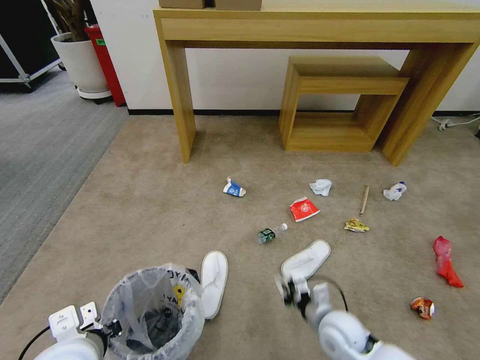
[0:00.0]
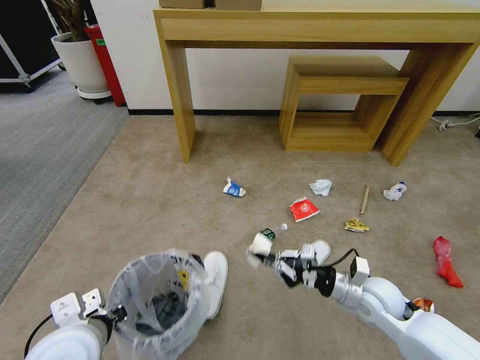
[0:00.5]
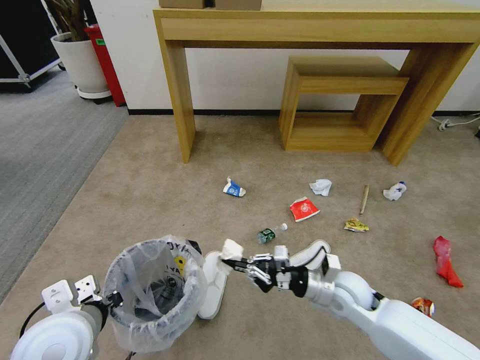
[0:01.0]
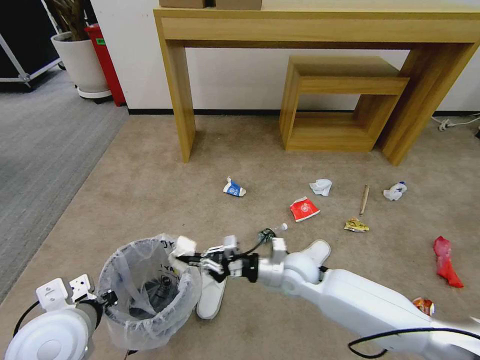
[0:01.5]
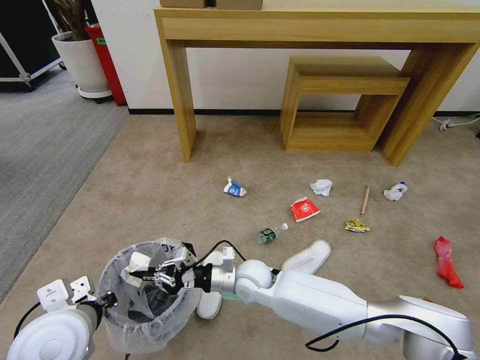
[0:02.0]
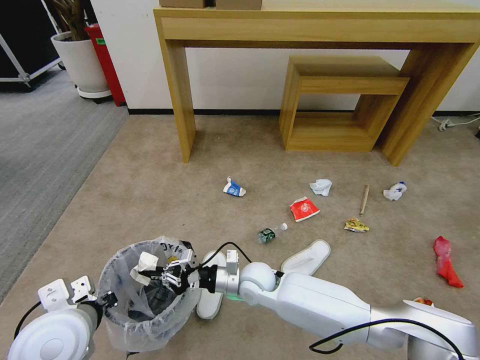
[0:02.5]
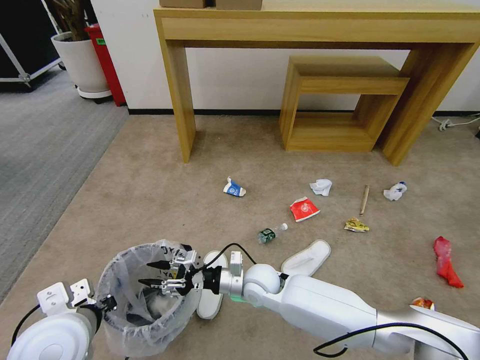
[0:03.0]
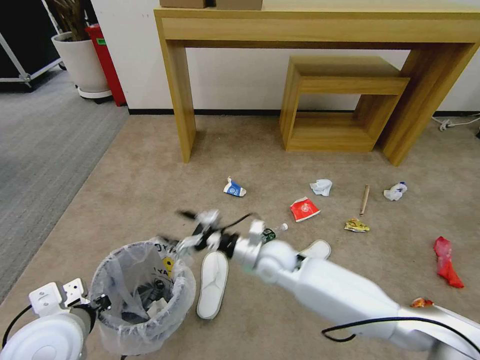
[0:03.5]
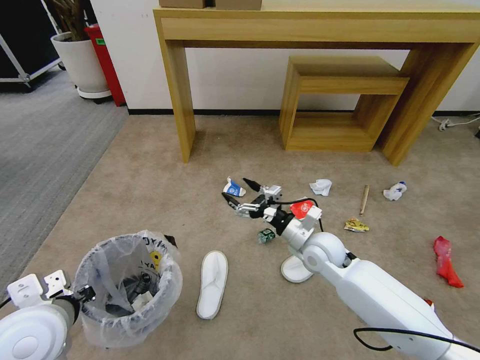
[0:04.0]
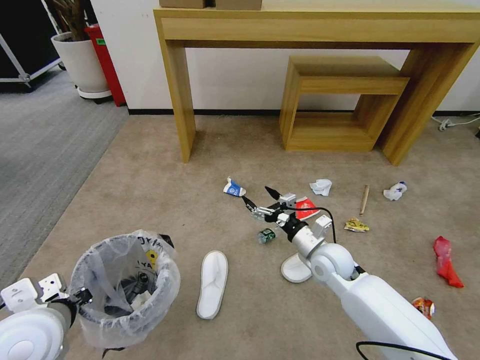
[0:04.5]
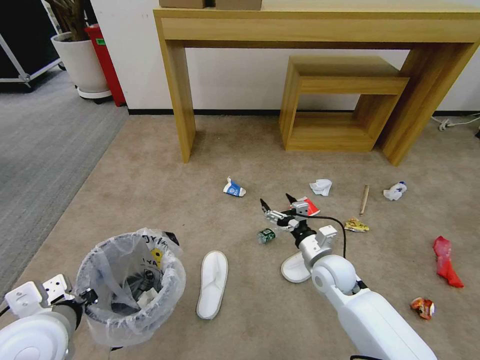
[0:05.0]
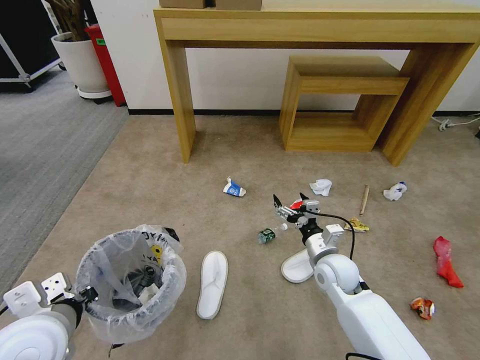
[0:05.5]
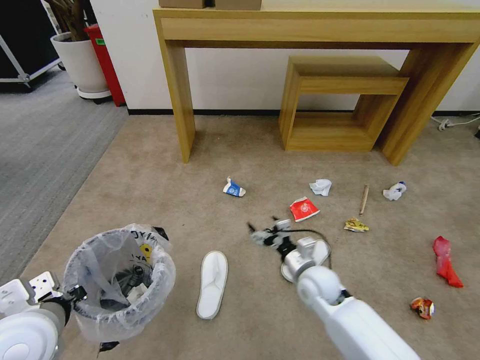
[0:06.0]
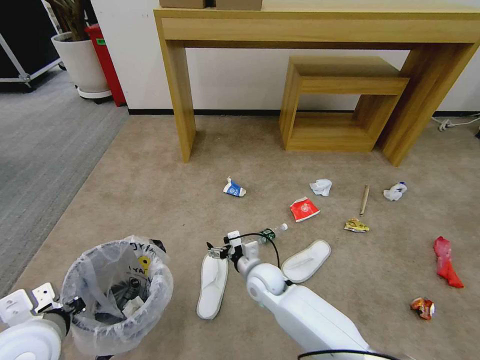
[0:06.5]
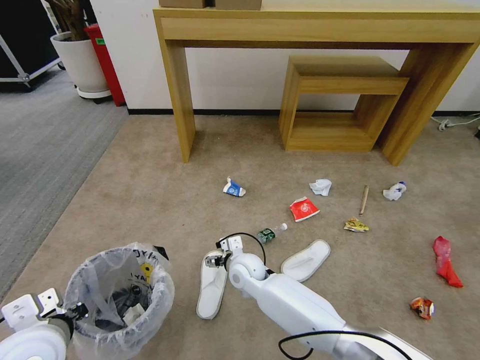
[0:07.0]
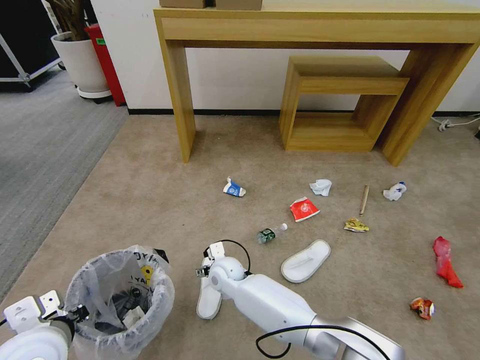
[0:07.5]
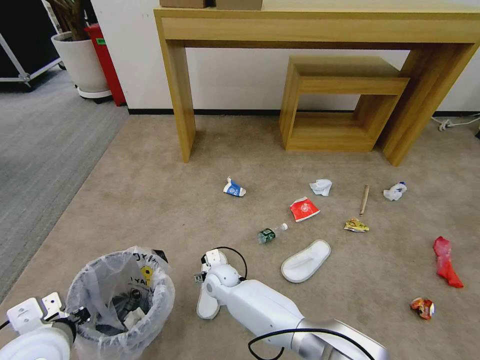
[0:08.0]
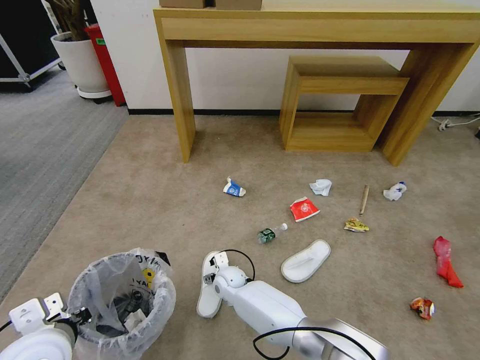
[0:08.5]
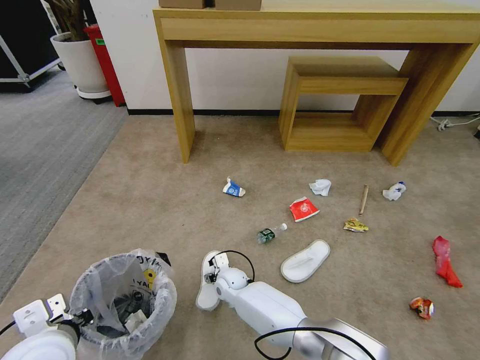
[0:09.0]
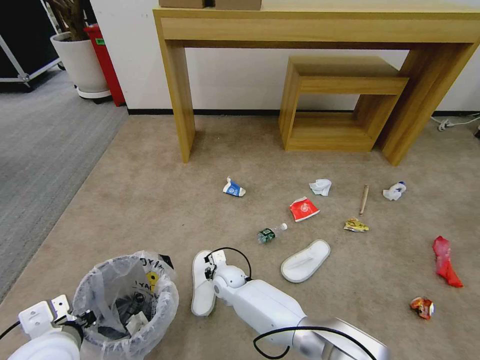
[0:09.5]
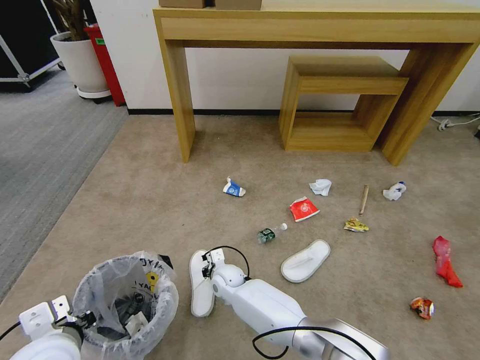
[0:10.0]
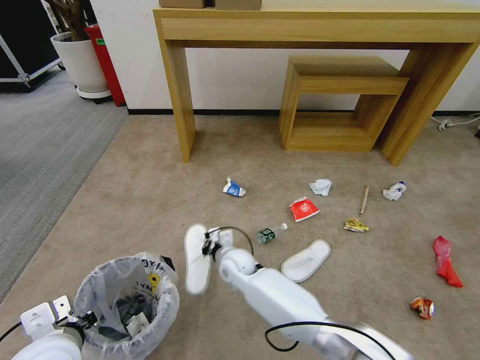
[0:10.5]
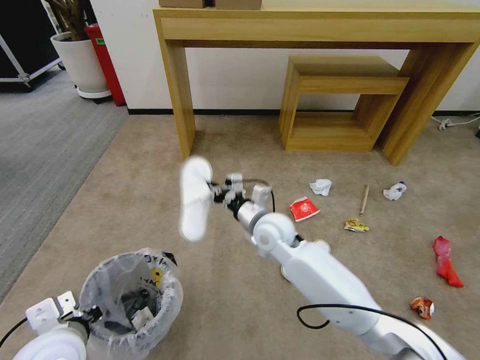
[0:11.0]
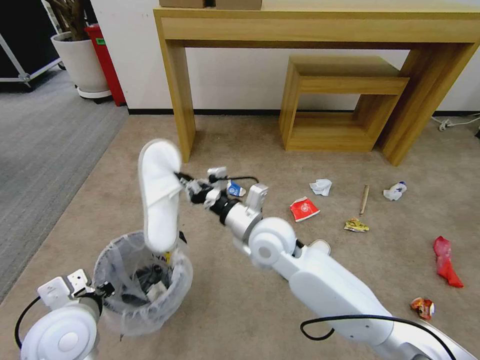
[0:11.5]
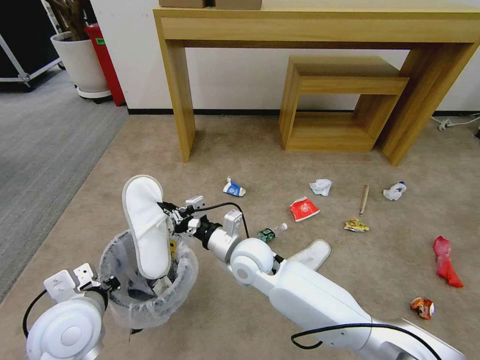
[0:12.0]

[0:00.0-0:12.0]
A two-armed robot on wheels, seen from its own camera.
Task of the whole recording: Pick up the trash bin and place the garbage on the floor into it.
0:00.0 to 0:02.0: The right gripper shifts about 25 cm to the left and forward.
0:02.0 to 0:04.0: The right gripper is displaced to the right by roughly 15 cm, and opens its fingers.
0:04.0 to 0:06.0: The right gripper is displaced downward and backward by roughly 10 cm.
0:06.0 to 0:08.0: The right gripper goes some 25 cm to the left.
0:08.0 to 0:10.0: The right gripper closes.
0:10.0 to 0:12.0: The left gripper shifts about 5 cm forward. Meanwhile the right gripper is displaced upward by roughly 20 cm.

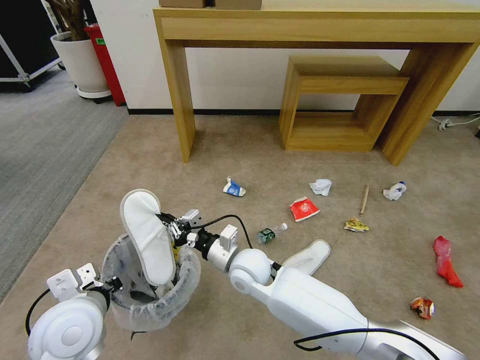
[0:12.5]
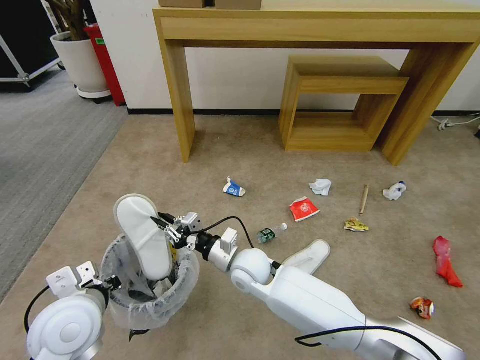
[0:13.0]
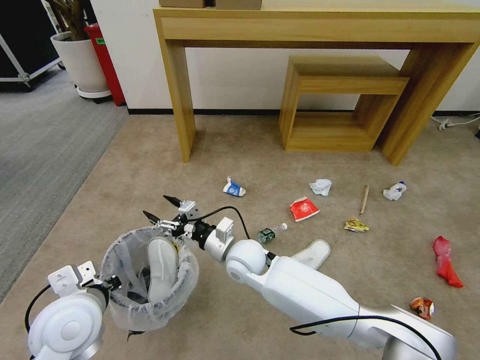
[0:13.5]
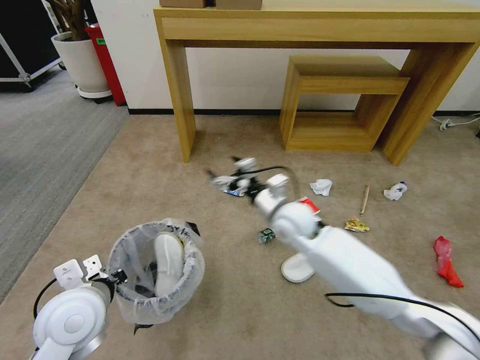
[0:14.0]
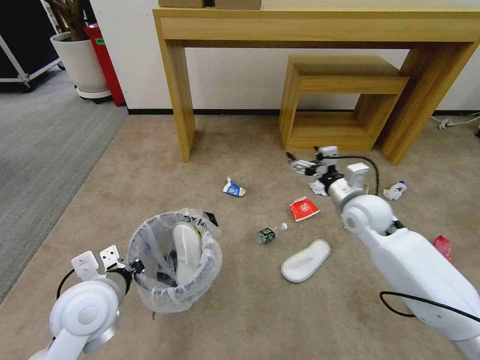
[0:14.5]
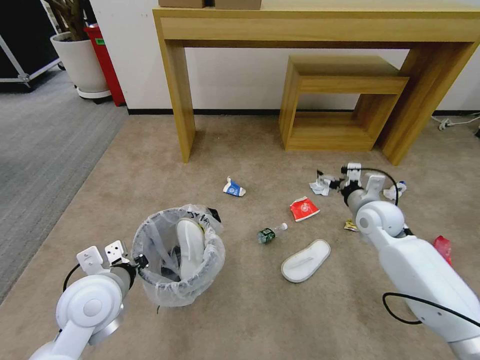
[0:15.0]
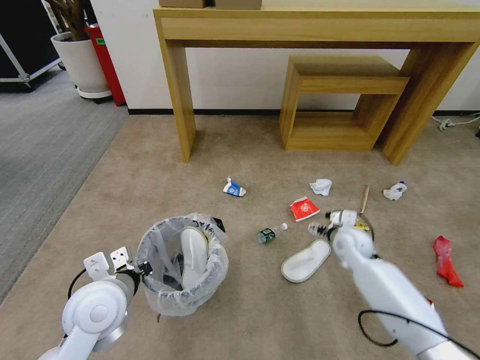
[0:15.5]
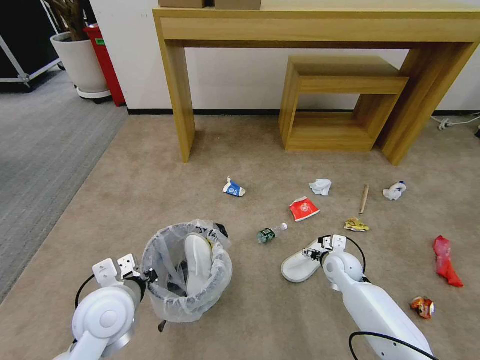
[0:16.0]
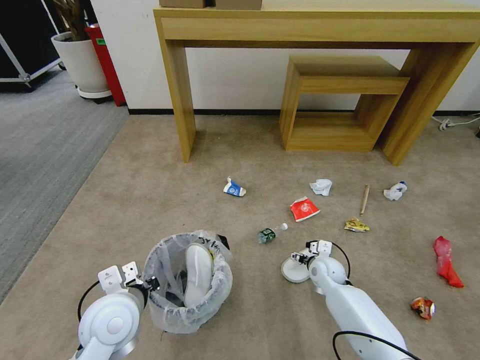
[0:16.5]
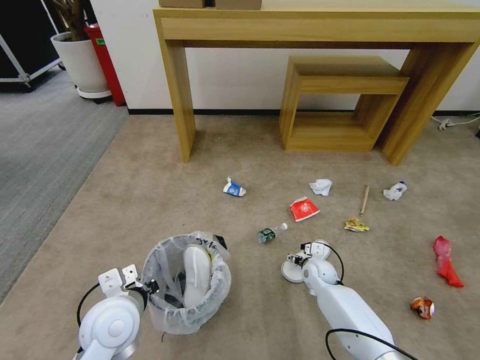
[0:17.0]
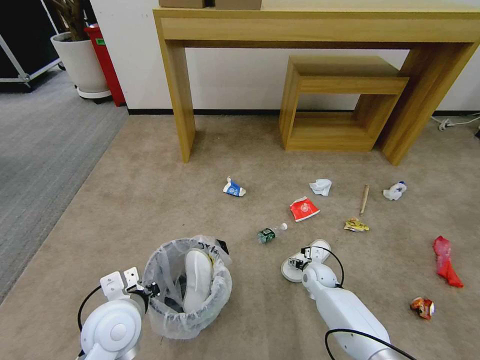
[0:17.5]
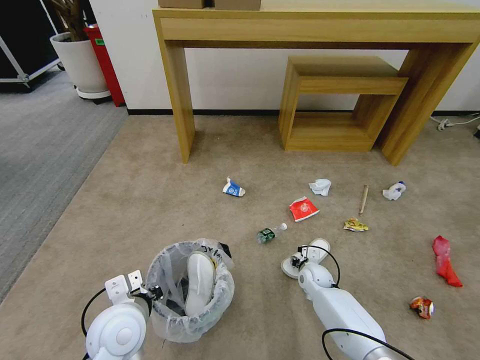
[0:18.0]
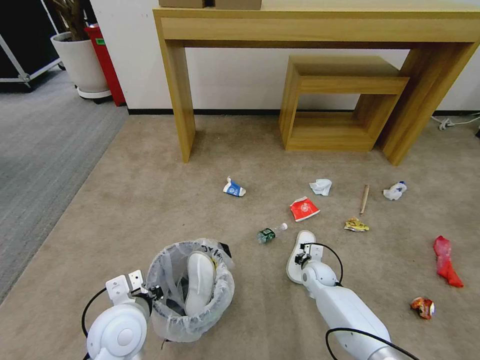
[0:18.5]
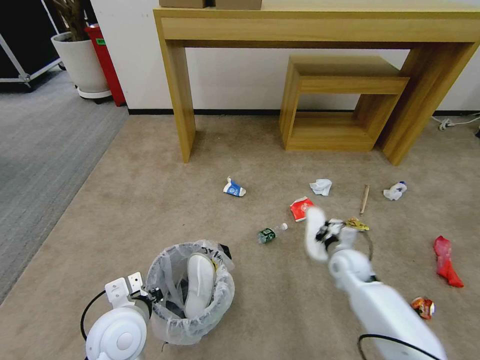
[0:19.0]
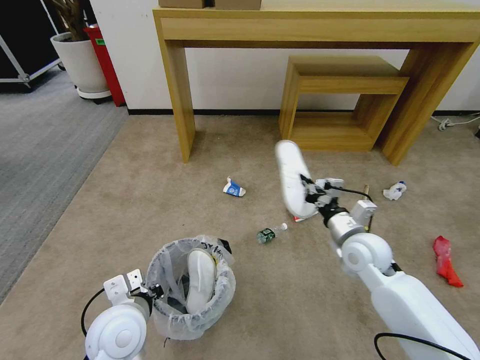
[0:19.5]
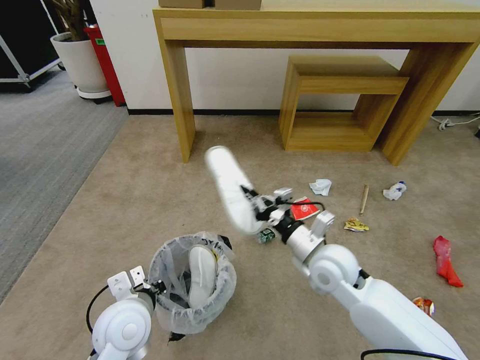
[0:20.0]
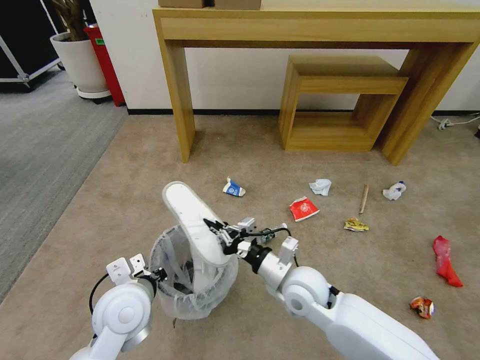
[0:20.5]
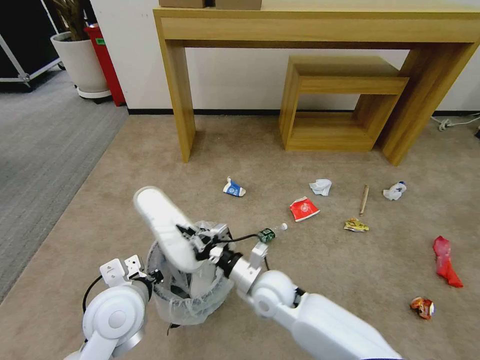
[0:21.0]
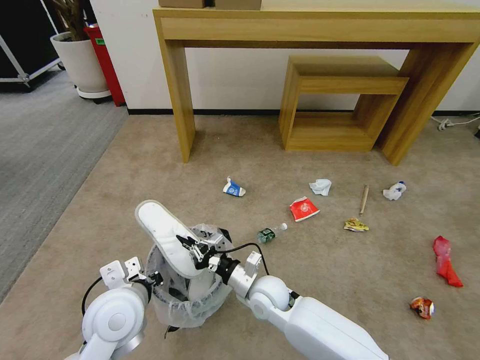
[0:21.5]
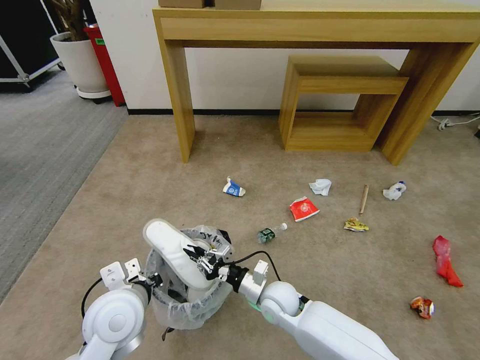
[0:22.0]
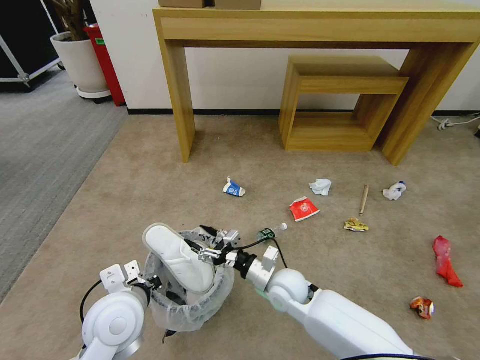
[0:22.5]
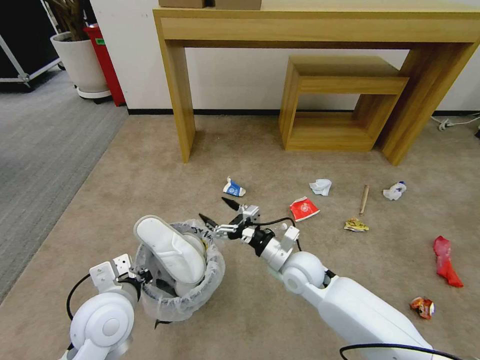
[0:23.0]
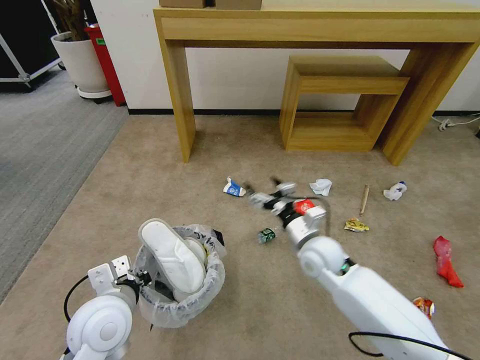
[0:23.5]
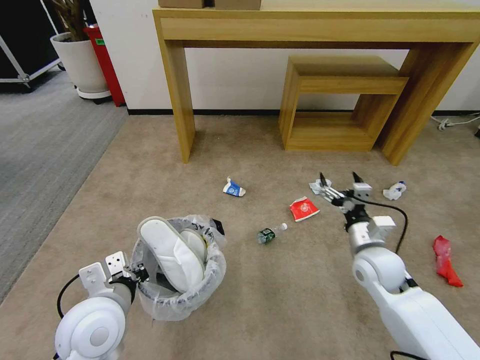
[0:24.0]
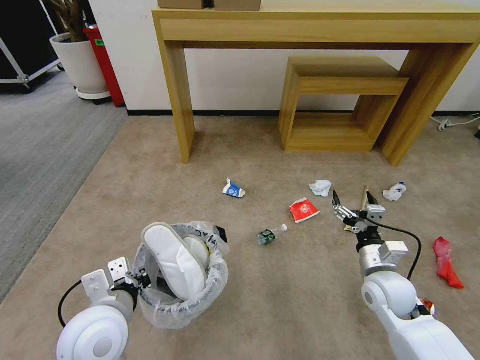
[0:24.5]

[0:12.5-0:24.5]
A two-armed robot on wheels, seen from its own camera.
Task of the whole recording: Pick up the trash bin and place the garbage on the floor into it.
0:12.5 to 0:14.5: The right gripper moves to the right, about 25 cm, and opens up.
0:14.5 to 0:16.5: The left gripper changes place by roughly 5 cm. Meanwhile the right gripper goes roughly 25 cm downward.
0:16.5 to 0:18.5: The right gripper closes up.
0:18.5 to 0:20.5: The right gripper shifts roughly 25 cm upward, backward and to the left.
0:20.5 to 0:22.5: The right gripper travels downward by approximately 5 cm, and opens.
0:22.5 to 0:24.5: The right gripper shifts roughly 20 cm to the right.

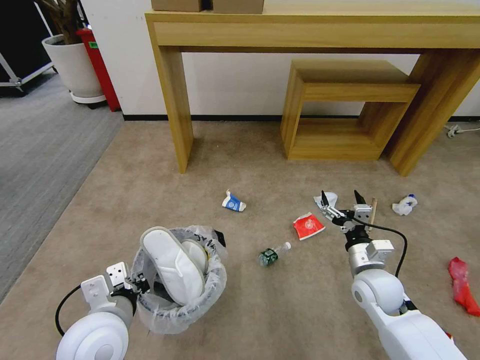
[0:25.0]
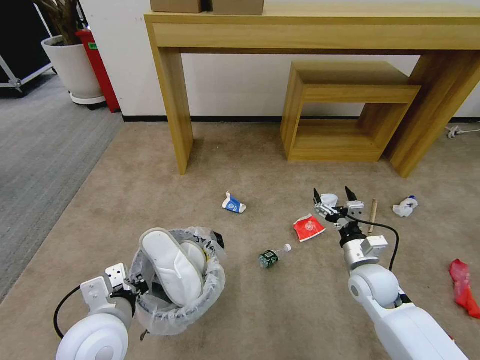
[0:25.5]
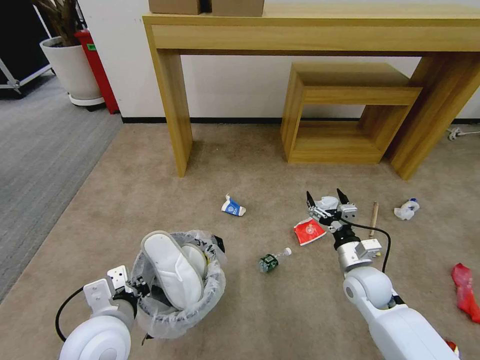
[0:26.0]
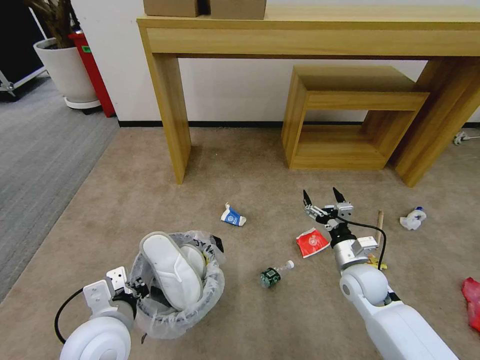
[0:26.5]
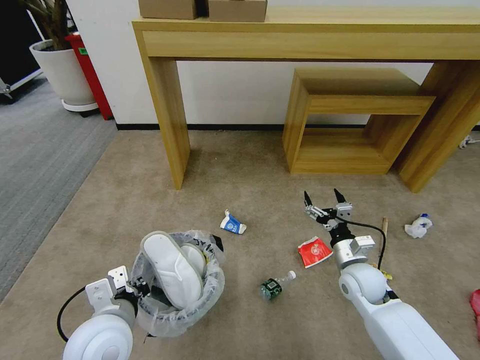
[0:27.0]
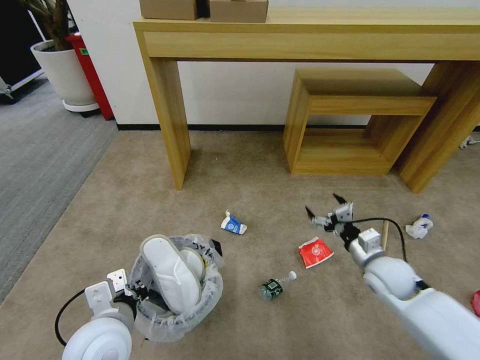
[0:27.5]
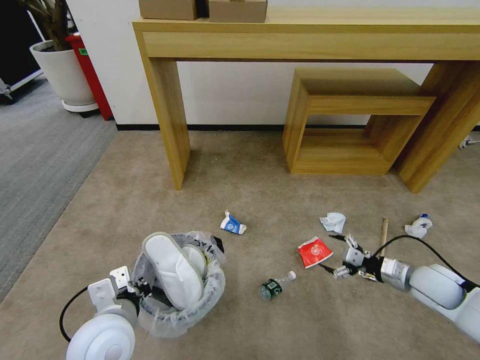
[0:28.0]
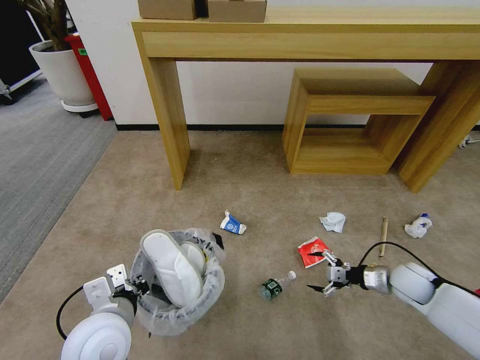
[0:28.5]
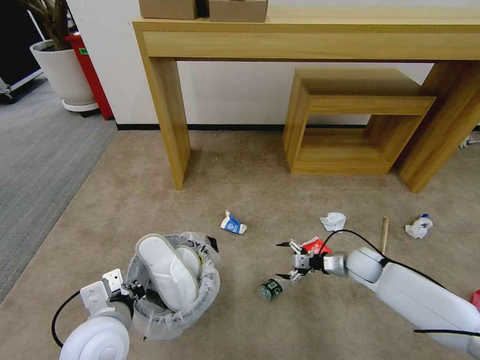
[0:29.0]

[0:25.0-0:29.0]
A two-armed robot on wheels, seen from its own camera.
Task of the whole recording: Pick up the trash bin and place the garbage on the floor into it.
0:27.0 to 0:29.0: The right gripper shifts roughly 10 cm forward, to the right and downward.
